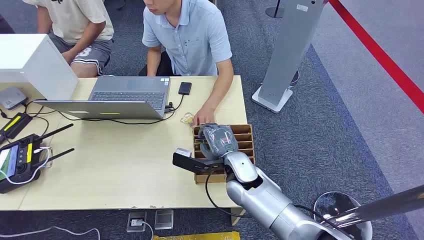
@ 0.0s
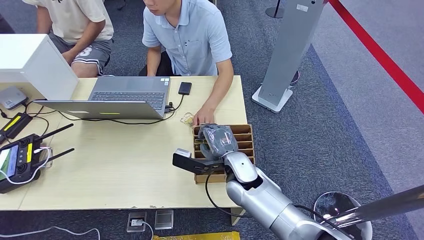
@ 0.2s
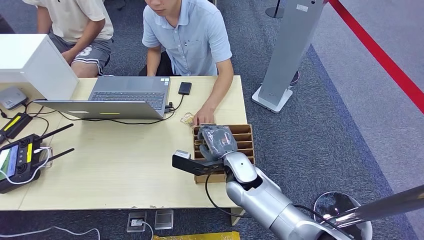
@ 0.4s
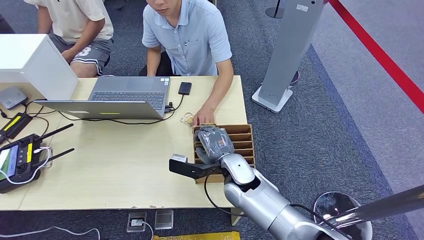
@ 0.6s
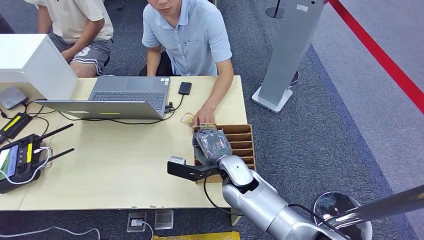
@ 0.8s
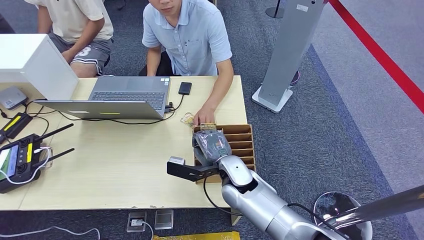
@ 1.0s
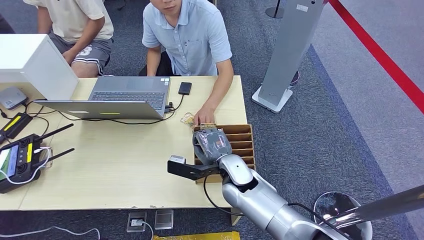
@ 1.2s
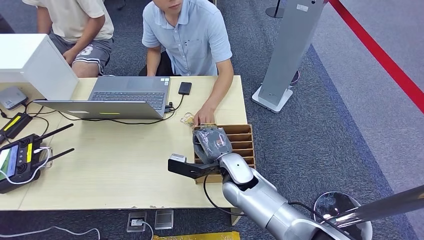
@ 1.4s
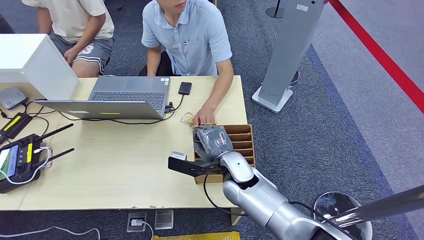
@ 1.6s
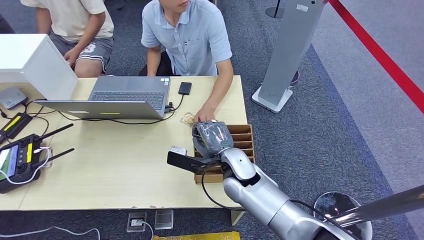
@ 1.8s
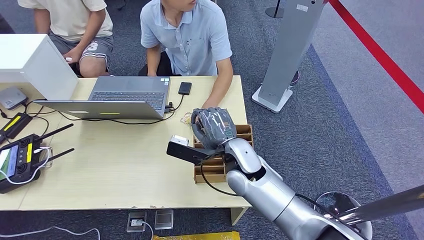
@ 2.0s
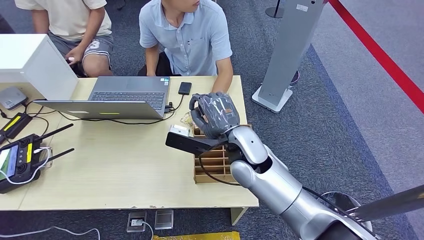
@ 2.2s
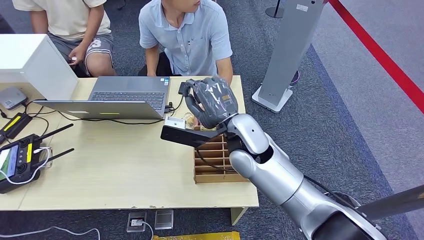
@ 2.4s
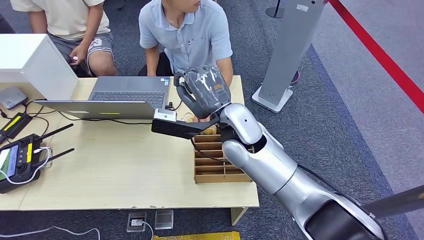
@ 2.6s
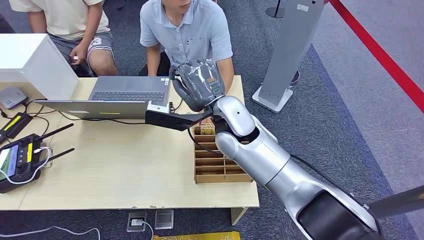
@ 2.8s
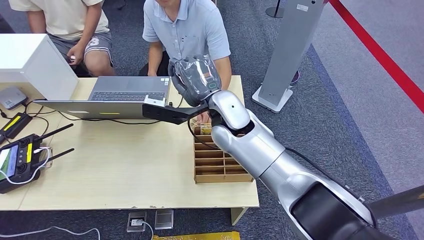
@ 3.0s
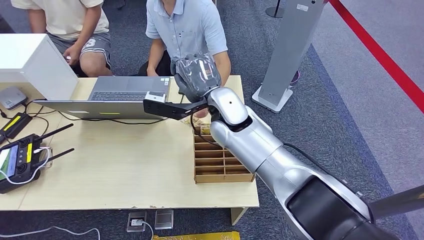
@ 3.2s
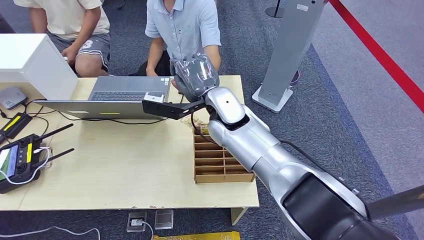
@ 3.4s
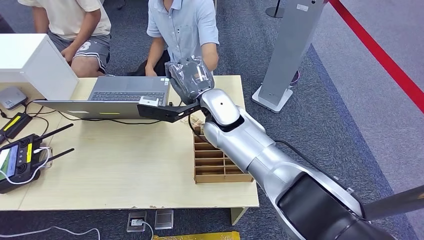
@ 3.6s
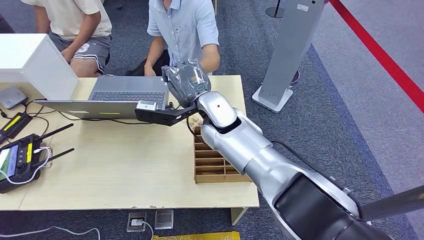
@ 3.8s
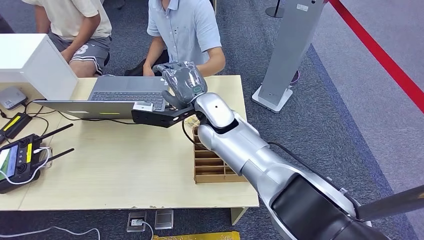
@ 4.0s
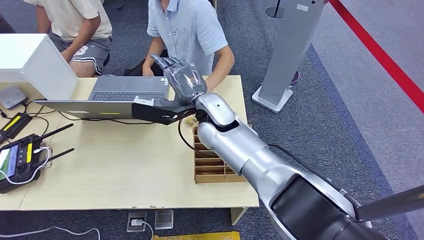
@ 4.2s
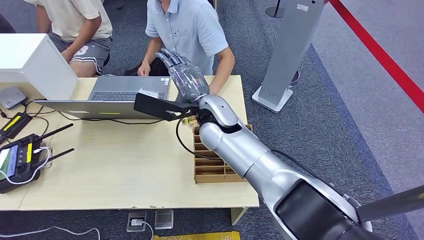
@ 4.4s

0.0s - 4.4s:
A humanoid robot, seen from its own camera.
Step, 0.0s - 2.4s: Pick up the key card from the card box.
Step, 2.6s - 4.4s: Hand the key card to the target.
1.4s - 3.0s: The right hand is displaced upward and forward by about 20 cm.
3.0s - 4.4s: The hands stay close to where they were, moving slightly.
